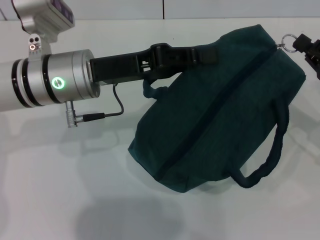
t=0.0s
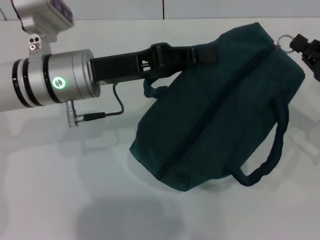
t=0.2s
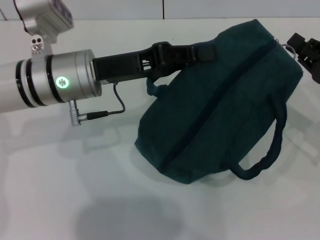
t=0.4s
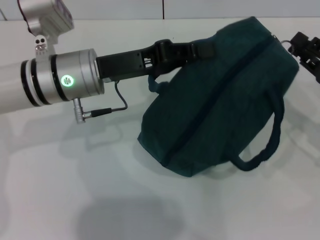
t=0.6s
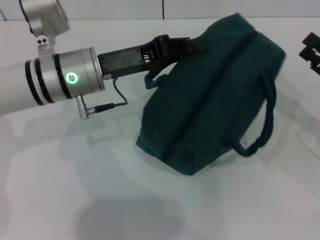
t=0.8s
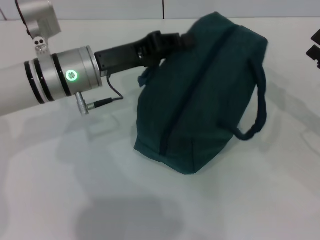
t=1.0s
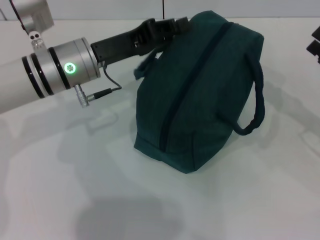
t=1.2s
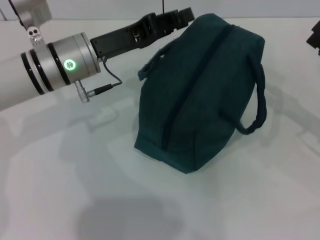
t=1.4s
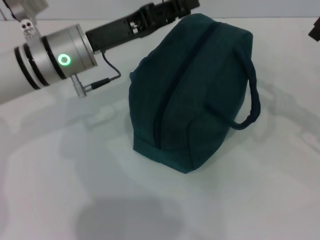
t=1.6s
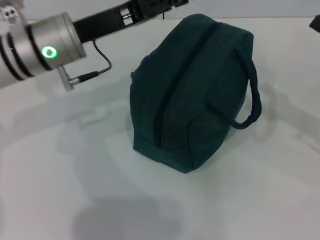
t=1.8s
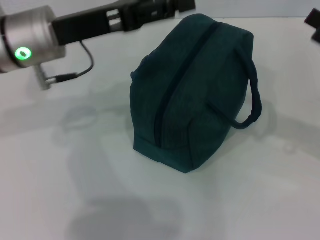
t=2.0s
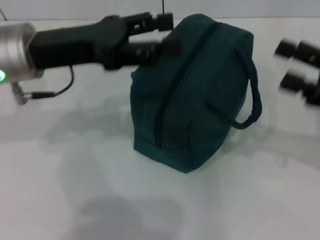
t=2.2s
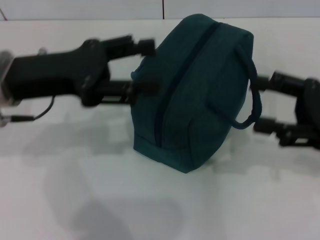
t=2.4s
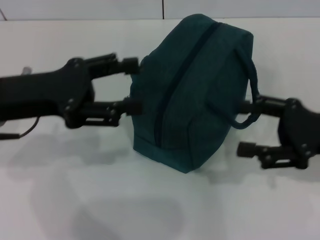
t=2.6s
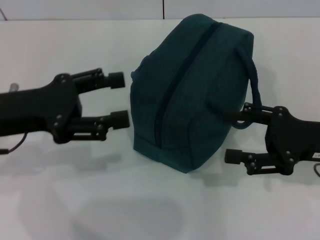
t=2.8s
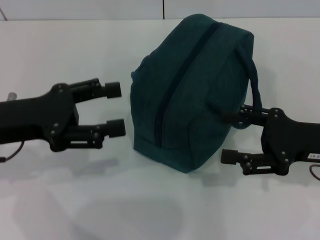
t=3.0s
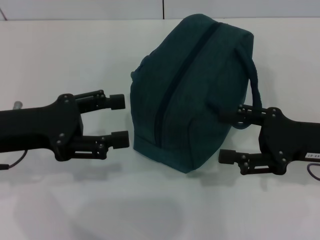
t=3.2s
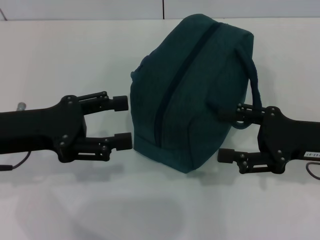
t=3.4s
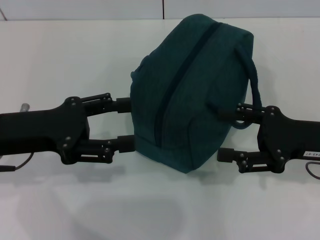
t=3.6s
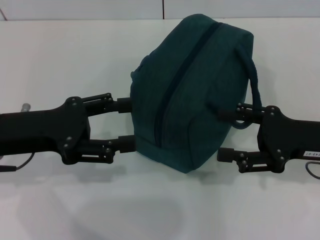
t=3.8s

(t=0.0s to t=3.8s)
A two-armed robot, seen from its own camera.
Step, t=0.8s - t=1.4s: Hold the lunch bag with your left hand.
t=0.0s - t=1.2s: The right gripper opens up.
t=1.2s - t=2.6s: The left gripper moves to the left and backward, some 10 cm, and opens its fingers; the right gripper shifts about 5 cm to the left.
t=2.6s - t=3.8s: The grippers move only a little.

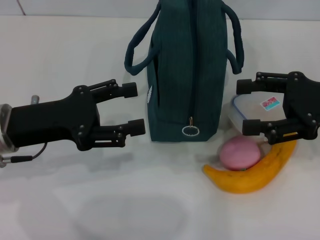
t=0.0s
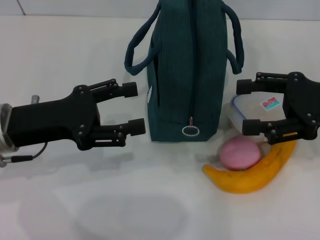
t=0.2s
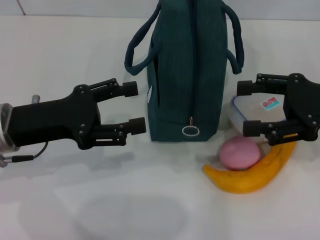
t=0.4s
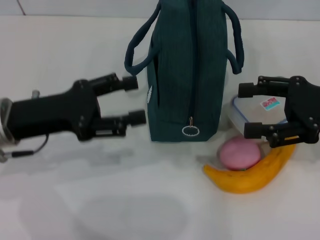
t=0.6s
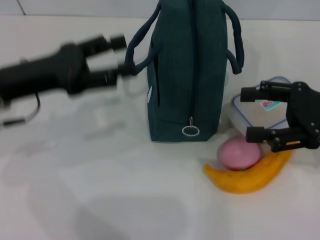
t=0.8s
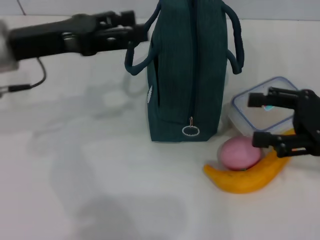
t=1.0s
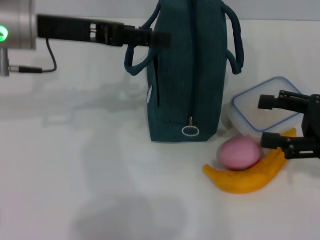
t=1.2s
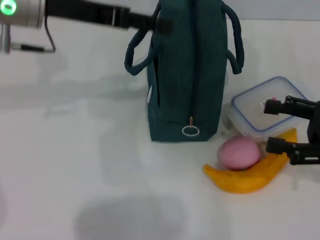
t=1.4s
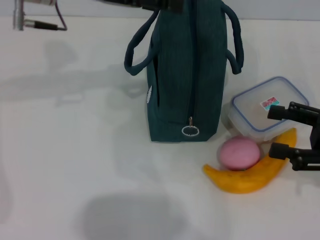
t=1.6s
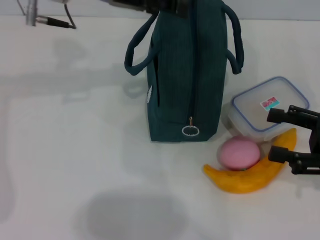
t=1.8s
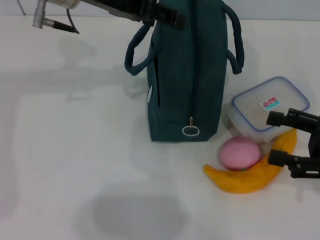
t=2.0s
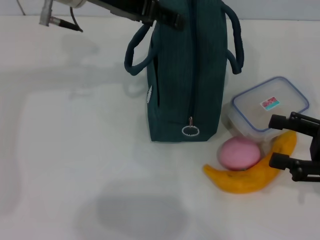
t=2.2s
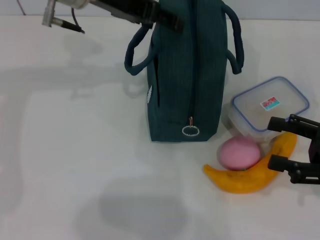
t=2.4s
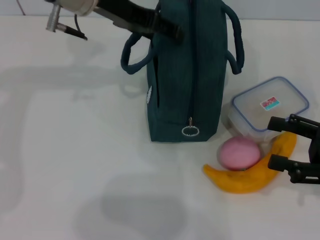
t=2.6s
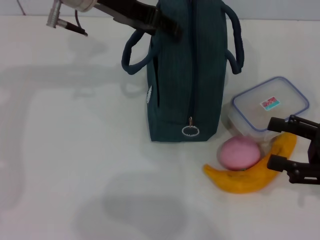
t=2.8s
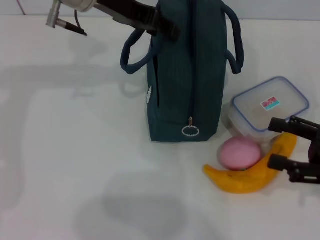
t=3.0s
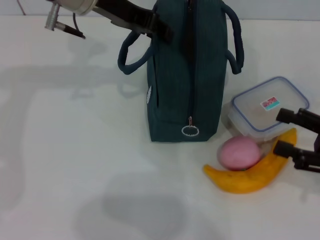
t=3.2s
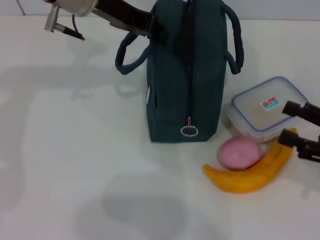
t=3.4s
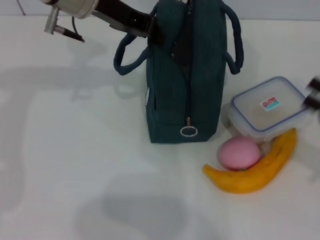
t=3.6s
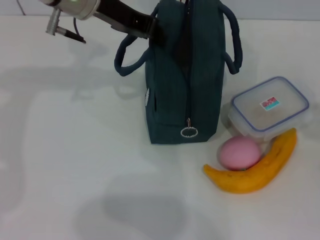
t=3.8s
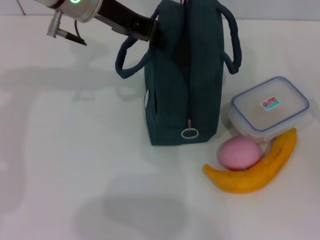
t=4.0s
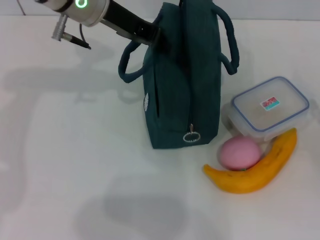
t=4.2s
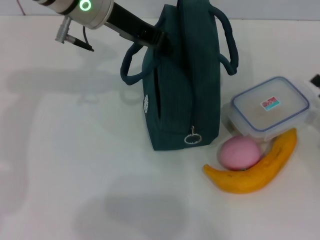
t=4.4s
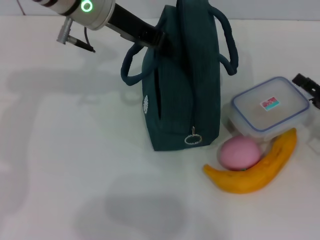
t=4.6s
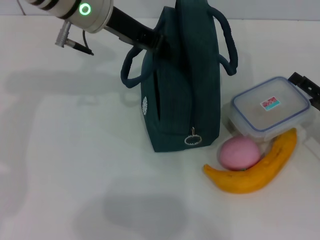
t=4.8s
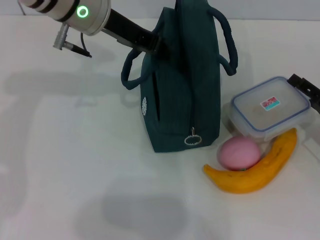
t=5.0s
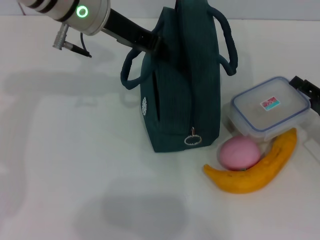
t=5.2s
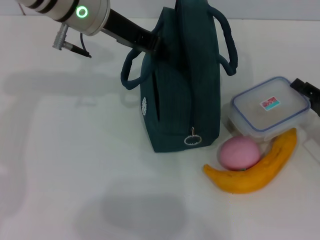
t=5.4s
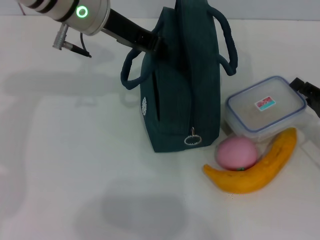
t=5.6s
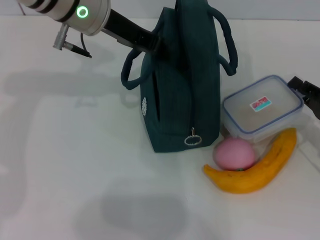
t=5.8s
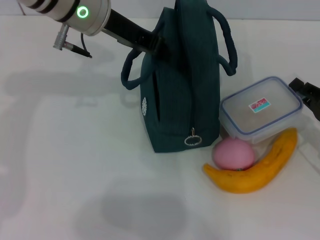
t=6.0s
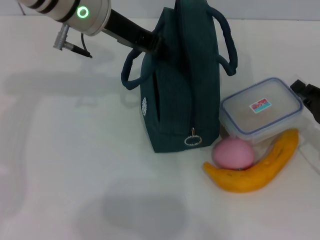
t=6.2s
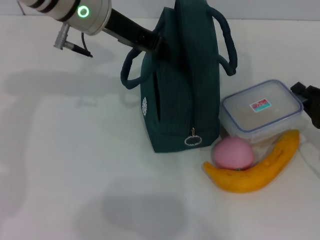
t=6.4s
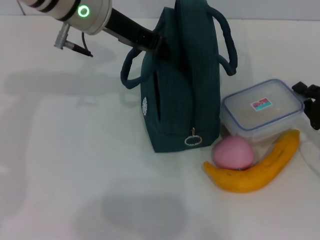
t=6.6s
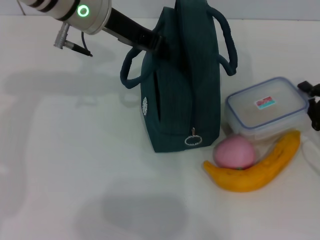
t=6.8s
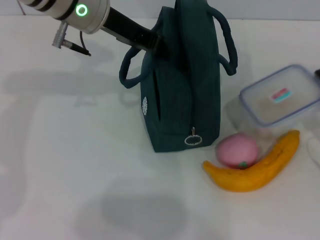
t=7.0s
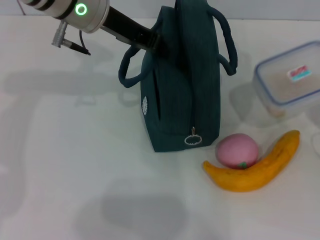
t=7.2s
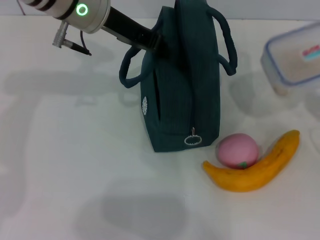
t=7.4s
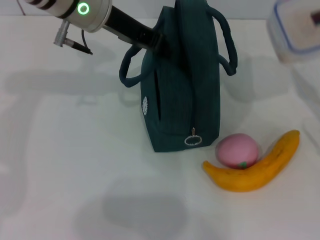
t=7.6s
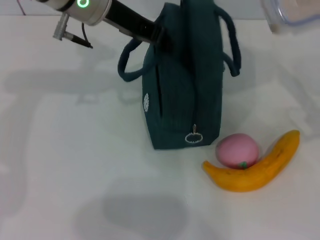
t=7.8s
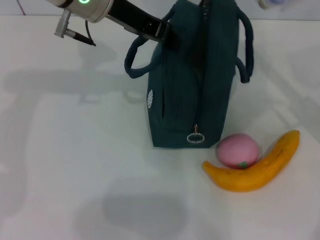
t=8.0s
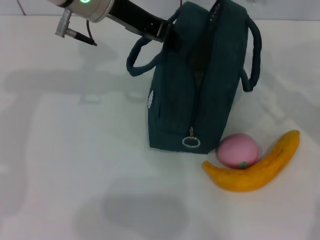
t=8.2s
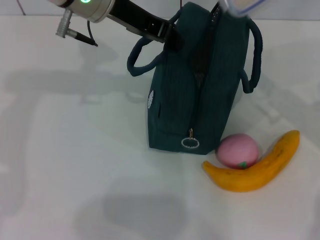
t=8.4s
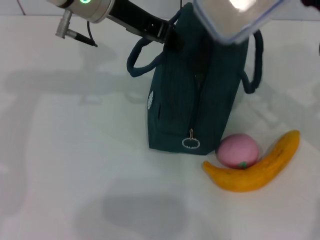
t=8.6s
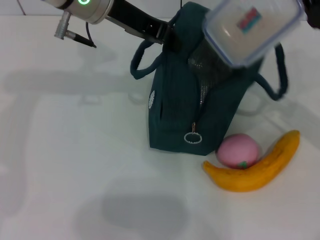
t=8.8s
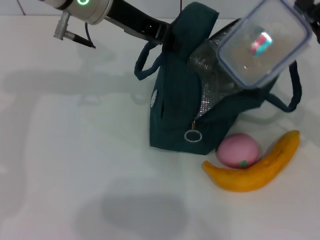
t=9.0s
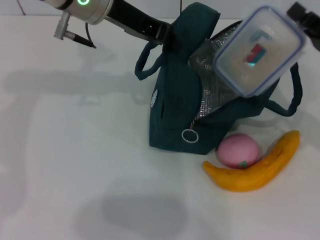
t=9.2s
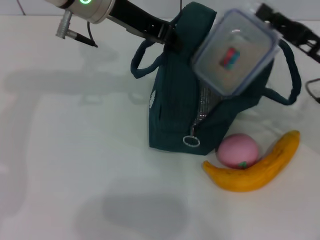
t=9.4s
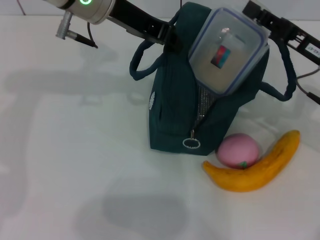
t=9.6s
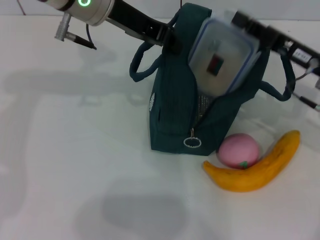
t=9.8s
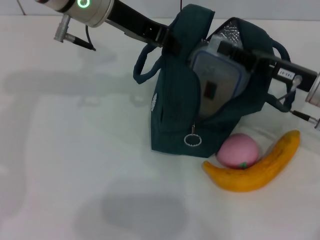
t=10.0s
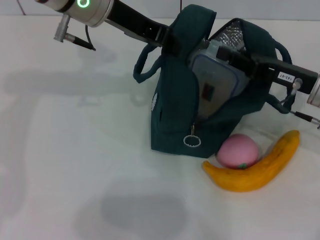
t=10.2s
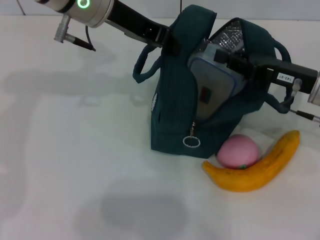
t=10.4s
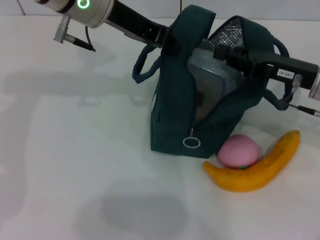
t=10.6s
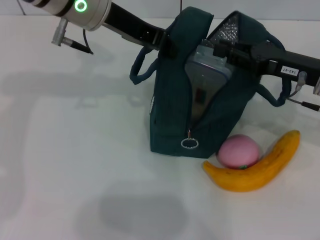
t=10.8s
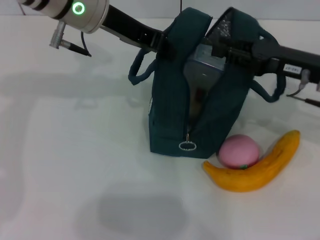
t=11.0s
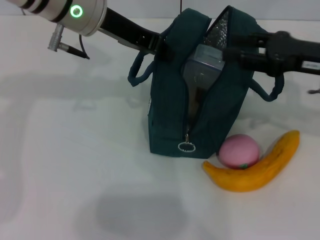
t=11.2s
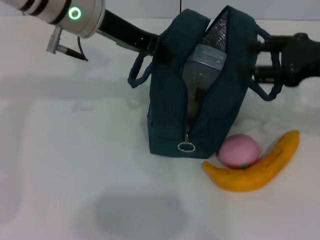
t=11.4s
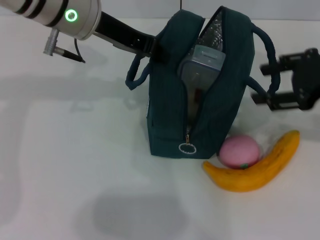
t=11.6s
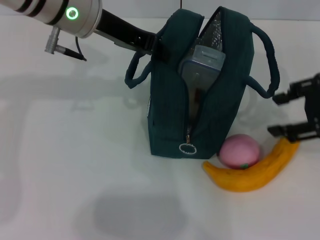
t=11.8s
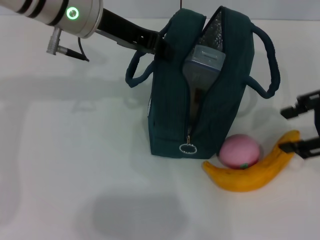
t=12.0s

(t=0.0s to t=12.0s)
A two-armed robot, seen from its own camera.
Step, t=0.0s - t=4.2s: Hold the lunch bag with your left hand.
Step, t=4.4s - t=6.6s: Pick up the lunch box with your right hand.
Step, t=6.8s - t=10.6s: Place the lunch box into the lunch bag with your right hand.
t=0.0s - t=1.6s: The left gripper shifts about 20 cm upward, forward and to the right. Meanwhile the right gripper shifts approximately 5 cm downward.
t=1.6s - t=3.0s: The left gripper shifts by roughly 5 cm.
t=3.0s - t=4.4s: The left gripper closes its fingers, while the right gripper moves downward, approximately 5 cm.
t=4.4s - t=6.0s: The right gripper closes up.
t=6.0s - t=7.6s: The right gripper goes some 5 cm upward.
t=9.0s - t=10.4s: The right gripper shifts roughly 5 cm to the left.
t=10.4s - t=12.0s: The right gripper is displaced upward and backward by some 15 cm, and opens up.

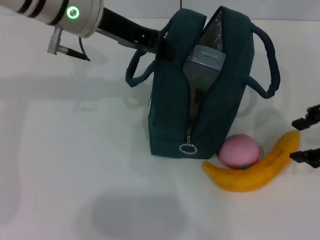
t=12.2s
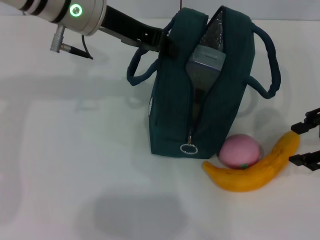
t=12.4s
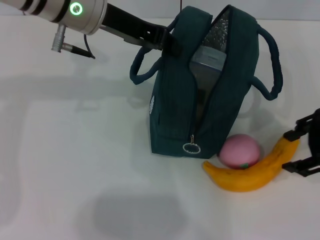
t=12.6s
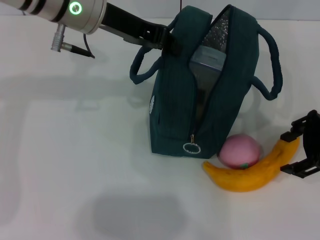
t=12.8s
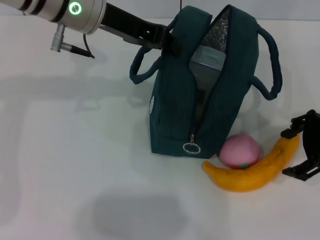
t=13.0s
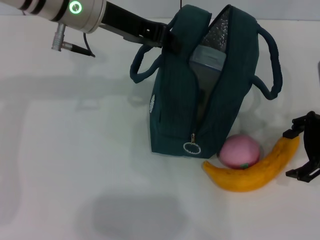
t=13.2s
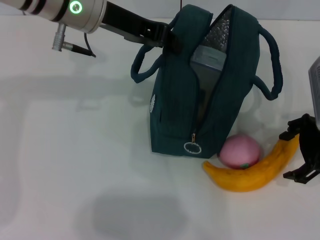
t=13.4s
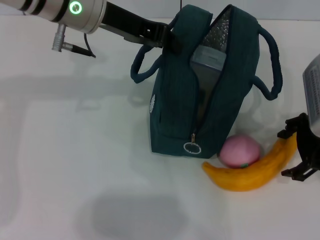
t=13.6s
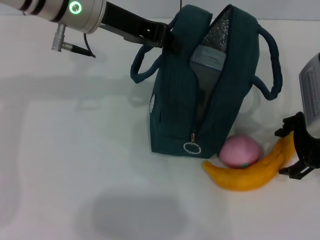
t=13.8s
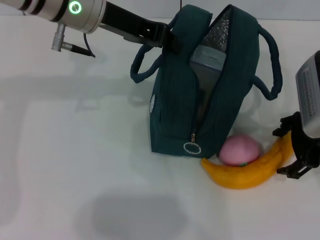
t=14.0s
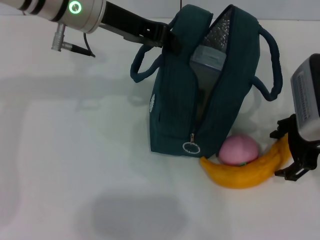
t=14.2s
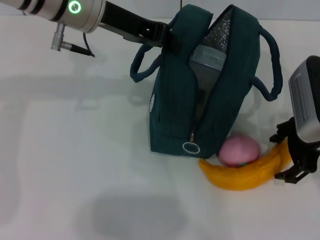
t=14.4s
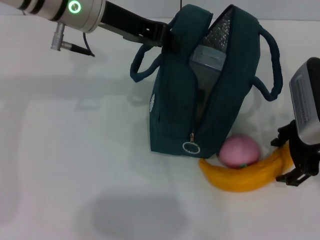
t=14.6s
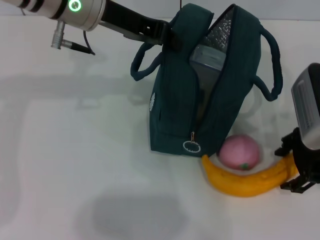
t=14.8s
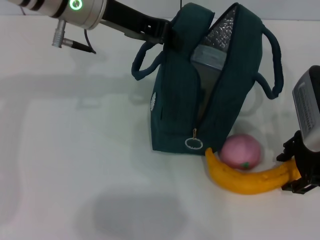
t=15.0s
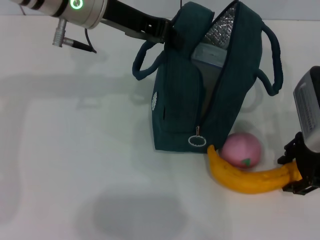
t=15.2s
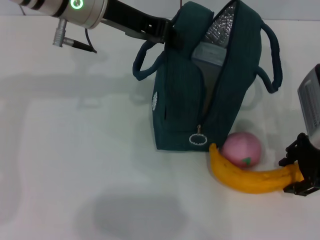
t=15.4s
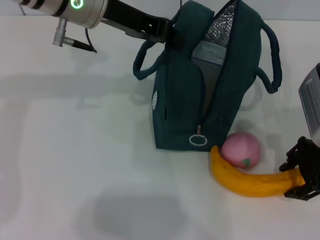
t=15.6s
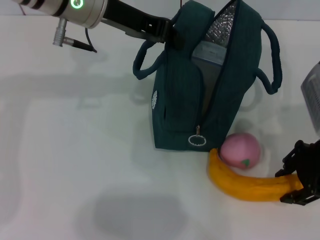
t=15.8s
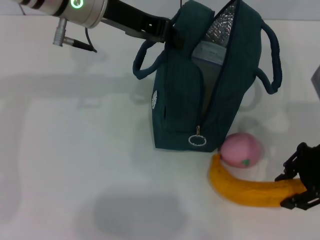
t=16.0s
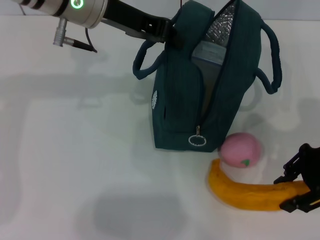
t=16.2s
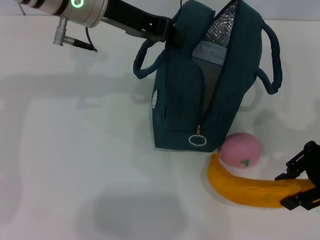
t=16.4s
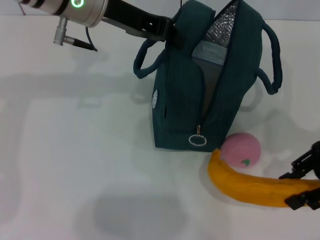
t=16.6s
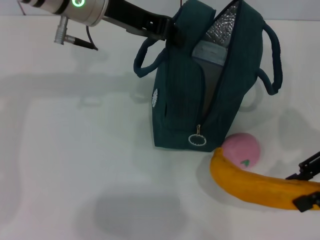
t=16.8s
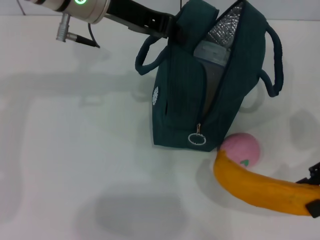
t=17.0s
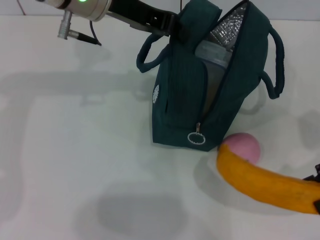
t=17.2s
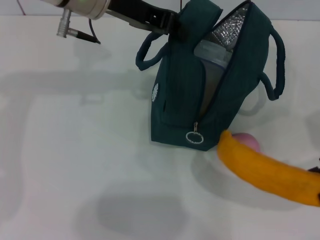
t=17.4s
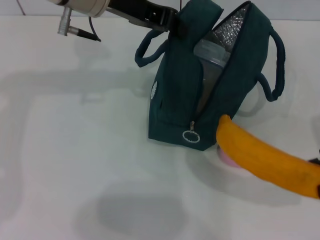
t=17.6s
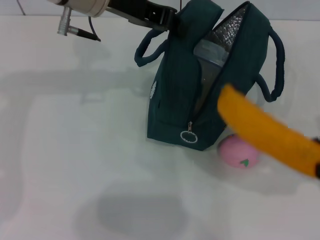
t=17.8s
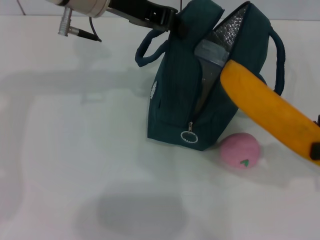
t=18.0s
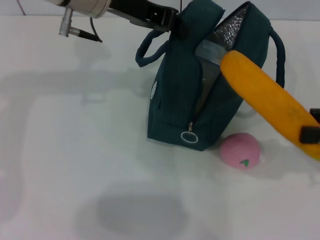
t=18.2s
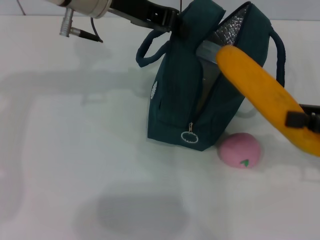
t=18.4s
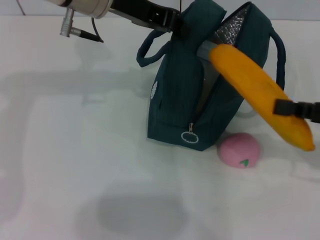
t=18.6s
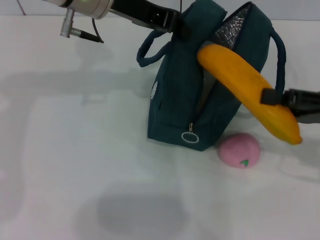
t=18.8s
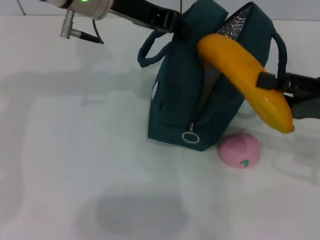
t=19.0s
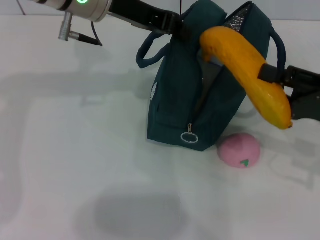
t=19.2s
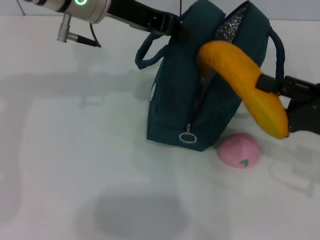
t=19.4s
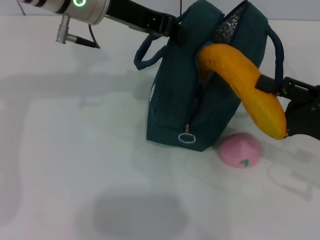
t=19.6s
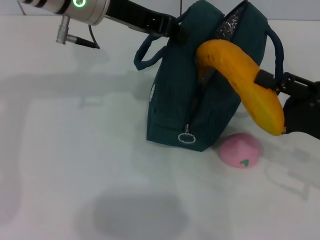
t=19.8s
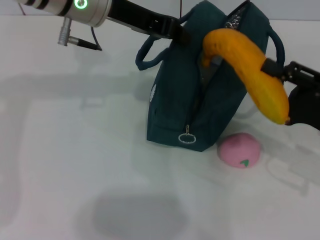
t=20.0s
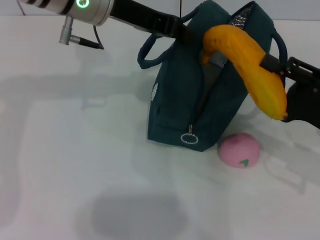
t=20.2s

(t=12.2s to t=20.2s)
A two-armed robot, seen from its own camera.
Step, t=12.2s - t=15.4s: Take the banana with your right hand.
t=12.2s - t=13.8s: The right gripper is displaced downward by approximately 5 cm.
t=13.8s - t=15.4s: There are only small adjustments of the grippers.
t=15.4s - t=17.0s: The right gripper shifts approximately 10 cm to the right.
t=18.6s - t=20.2s: The right gripper shifts by roughly 5 cm.
